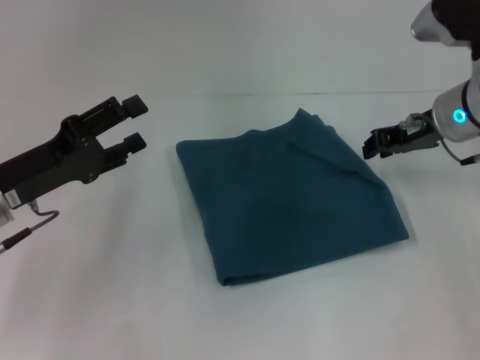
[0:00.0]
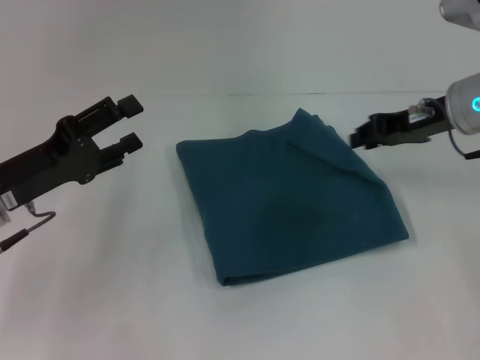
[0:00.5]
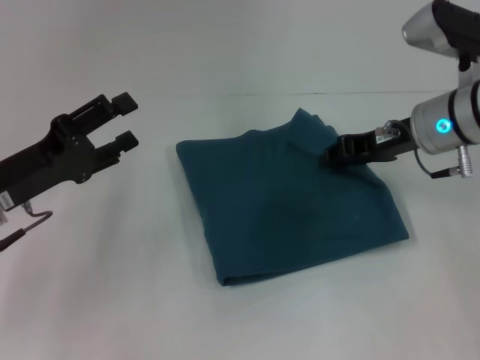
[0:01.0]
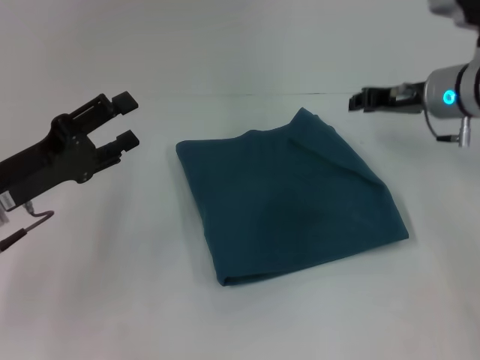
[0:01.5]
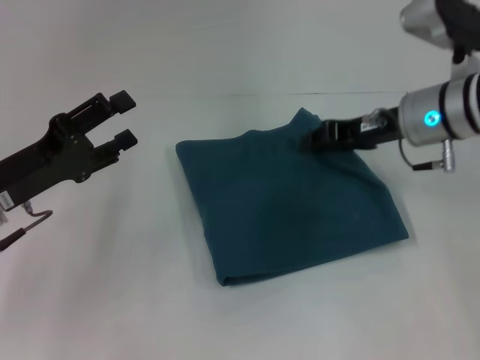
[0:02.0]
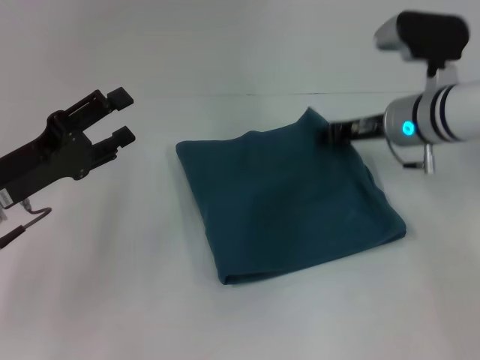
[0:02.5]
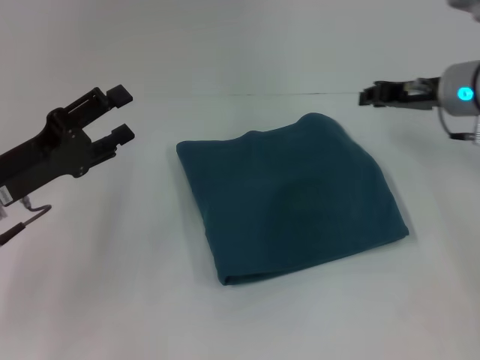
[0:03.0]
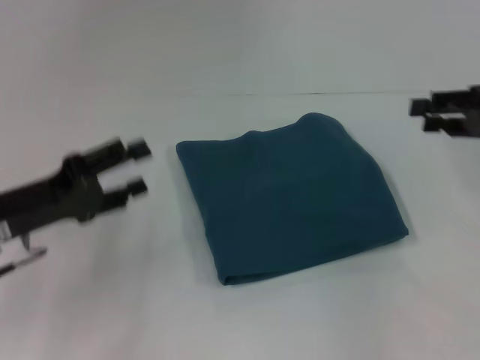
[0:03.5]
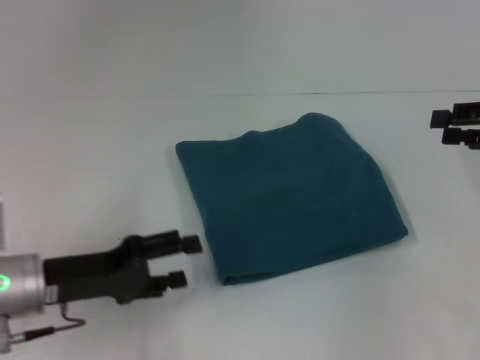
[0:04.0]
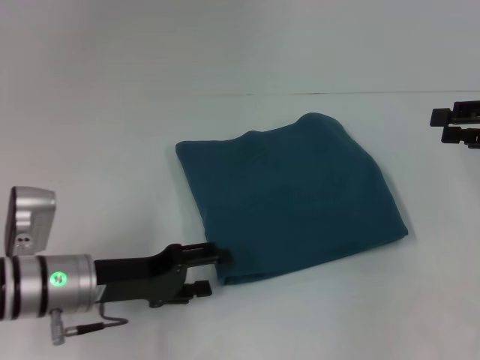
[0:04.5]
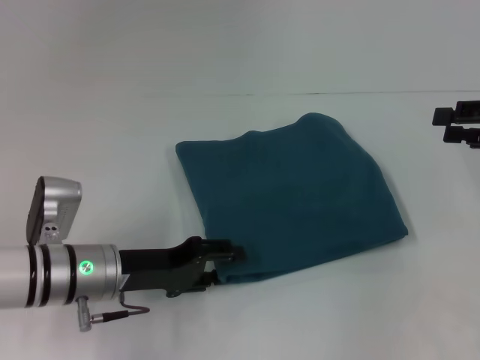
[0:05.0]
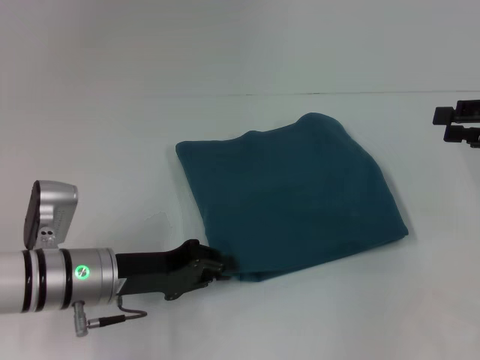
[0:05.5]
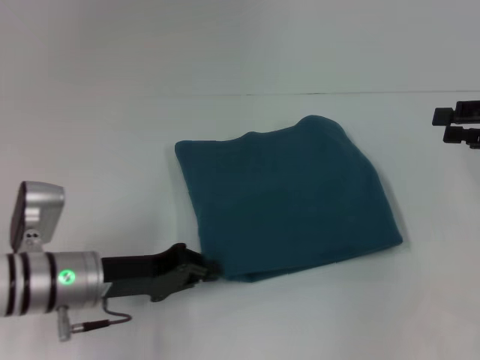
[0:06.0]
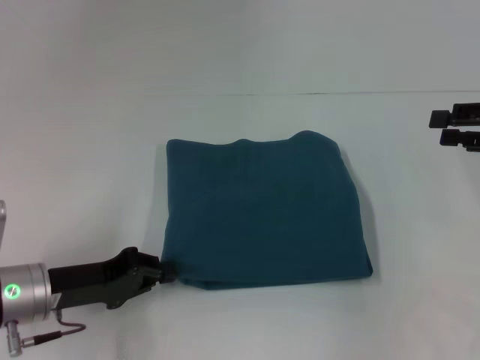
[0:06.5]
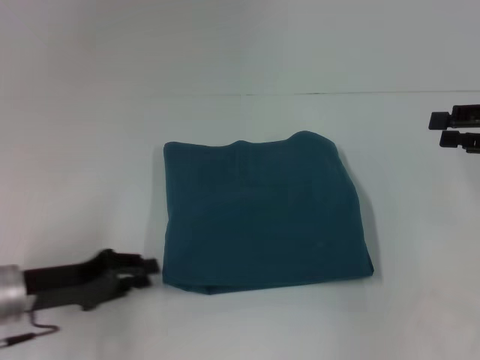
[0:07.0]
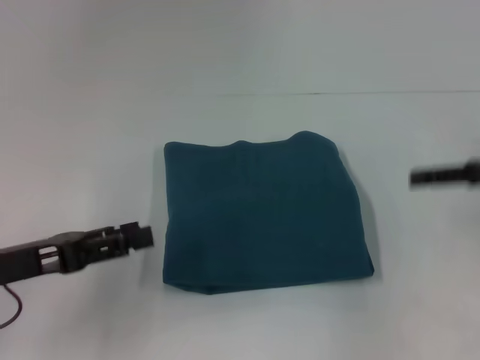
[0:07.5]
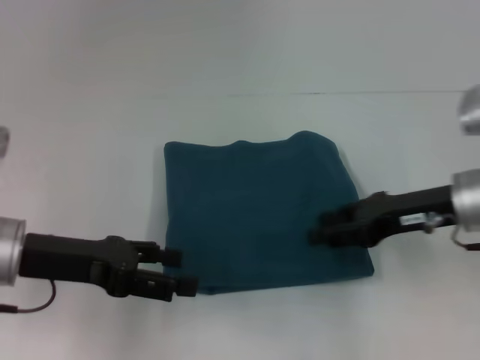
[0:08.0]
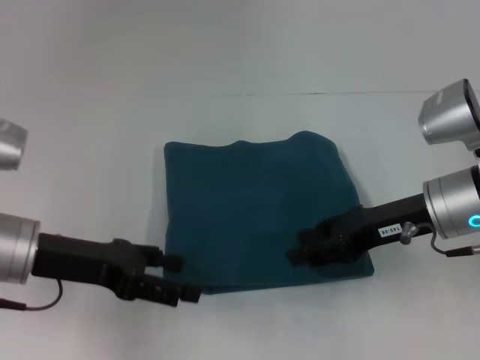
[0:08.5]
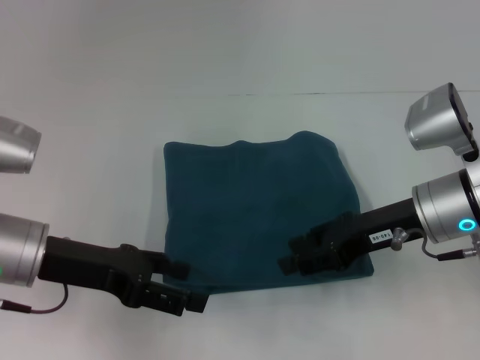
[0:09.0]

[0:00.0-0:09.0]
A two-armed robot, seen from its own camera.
0:02.0 to 0:04.5: The right gripper travels to the right by roughly 15 cm. Meanwhile the left gripper heads to the right and downward, covering some 10 cm.
0:04.5 to 0:07.0: The left gripper is displaced to the left by approximately 5 cm, and closes.
0:07.0 to 0:09.0: The left gripper travels upward by roughly 5 cm, and opens up, while the right gripper is displaced to the left by some 15 cm.

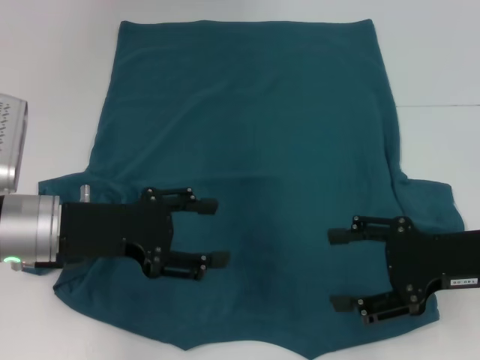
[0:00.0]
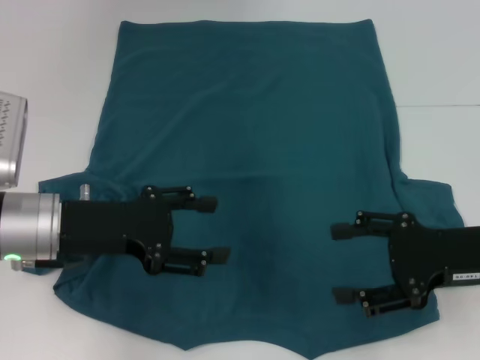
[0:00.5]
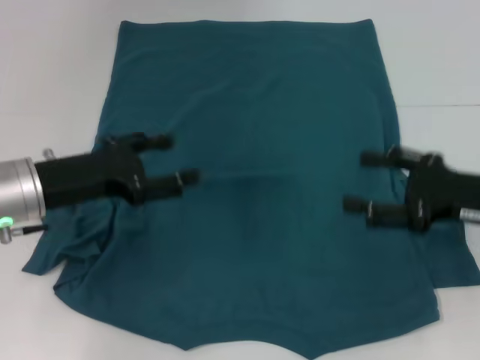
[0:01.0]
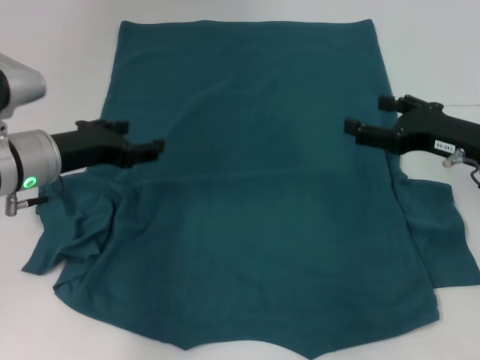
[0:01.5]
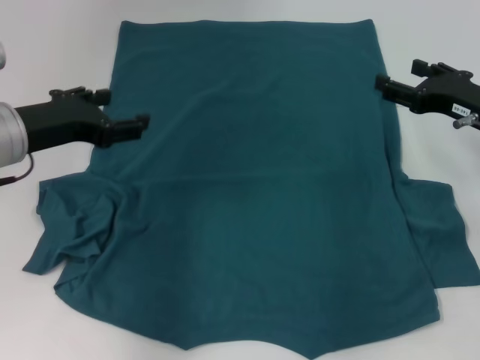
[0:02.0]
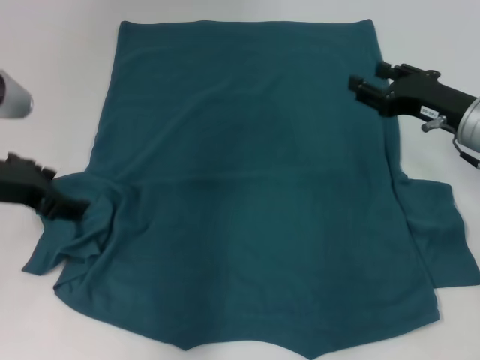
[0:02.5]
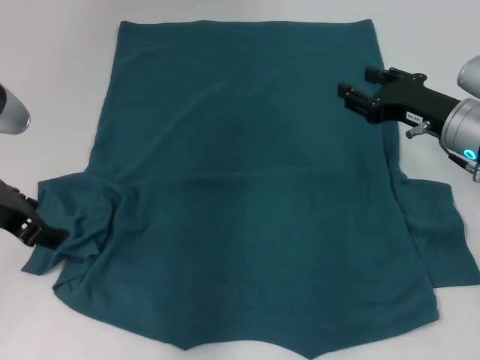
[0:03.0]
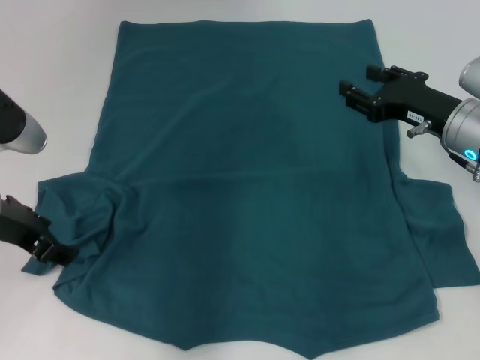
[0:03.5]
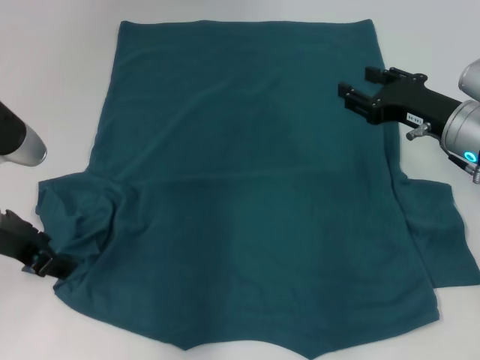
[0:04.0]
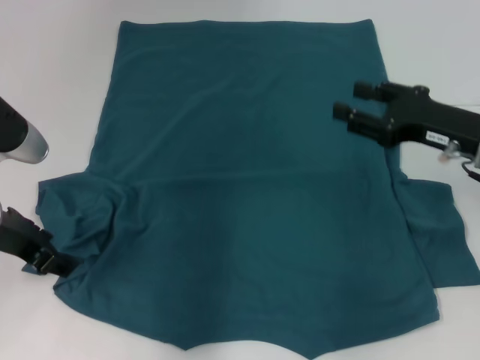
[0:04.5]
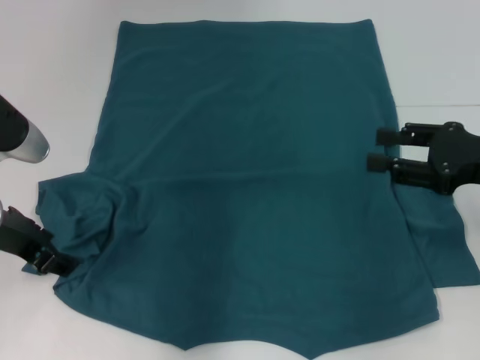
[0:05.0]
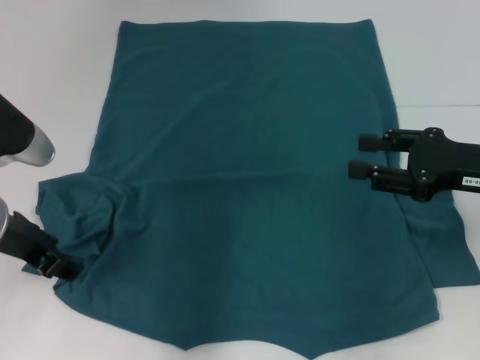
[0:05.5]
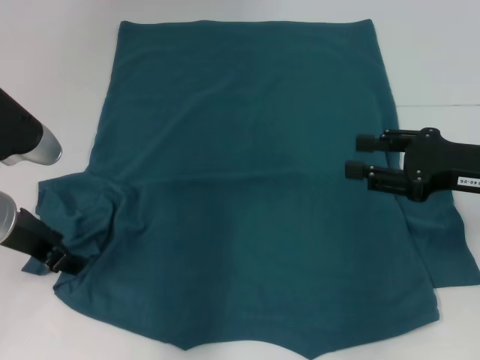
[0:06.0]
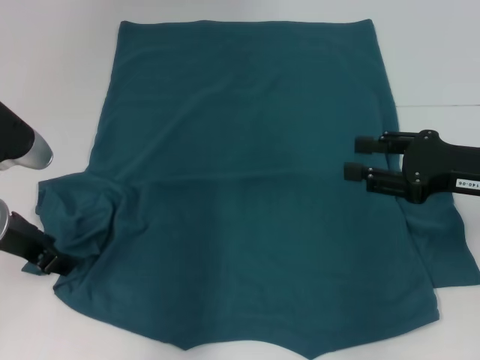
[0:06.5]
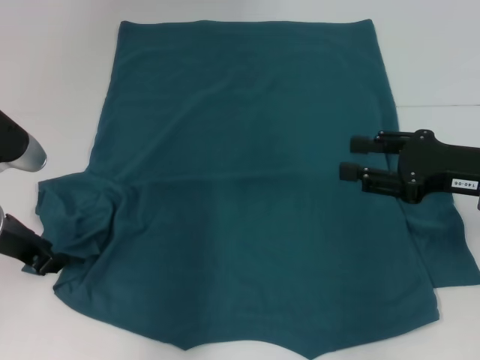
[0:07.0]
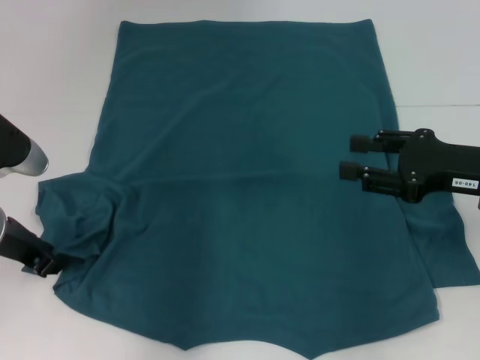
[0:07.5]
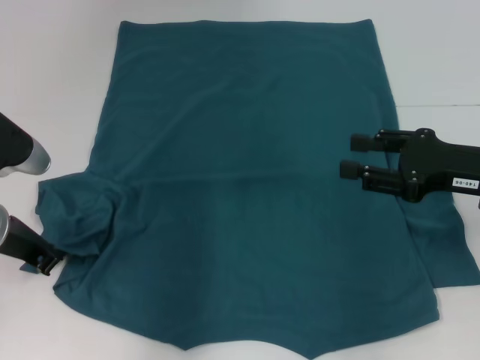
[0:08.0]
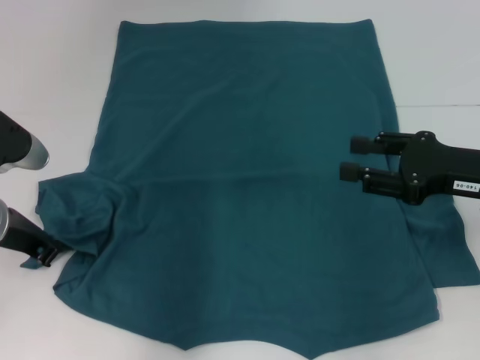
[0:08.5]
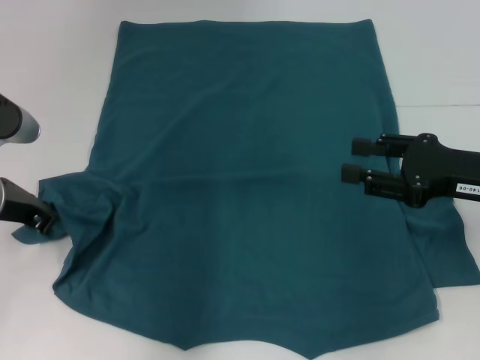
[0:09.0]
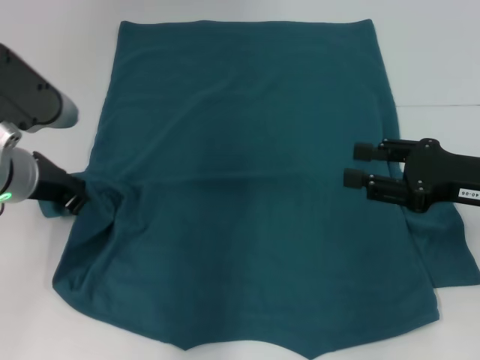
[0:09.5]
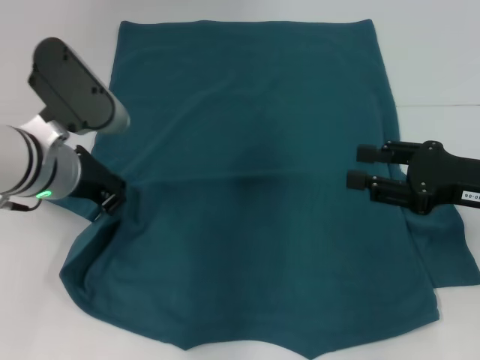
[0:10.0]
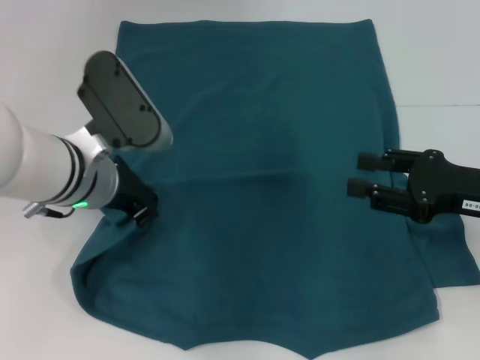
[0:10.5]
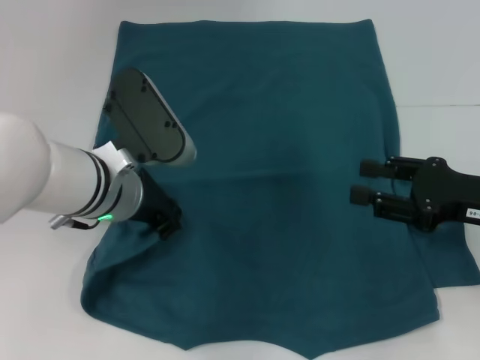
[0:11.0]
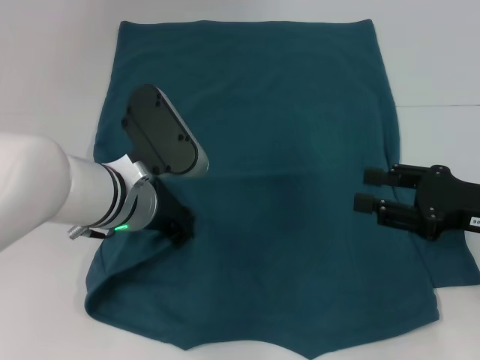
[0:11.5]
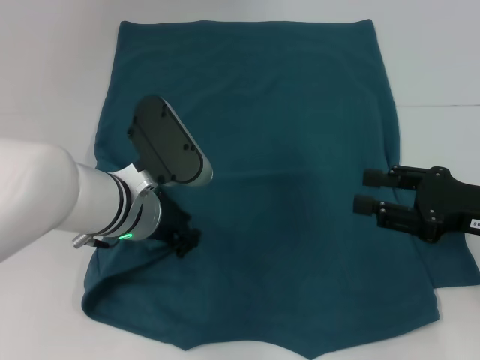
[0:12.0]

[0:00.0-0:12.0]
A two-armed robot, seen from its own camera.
0:00.0 to 0:02.0: The left gripper moves approximately 5 cm, while the right gripper is displaced forward by roughly 10 cm.
0:04.0 to 0:06.0: The right gripper travels backward by some 5 cm.
0:06.0 to 0:08.0: The left gripper closes its fingers.
0:08.0 to 0:10.0: The left gripper shifts about 10 cm to the right.
0:10.0 to 0:12.0: The left gripper shifts approximately 5 cm to the right.

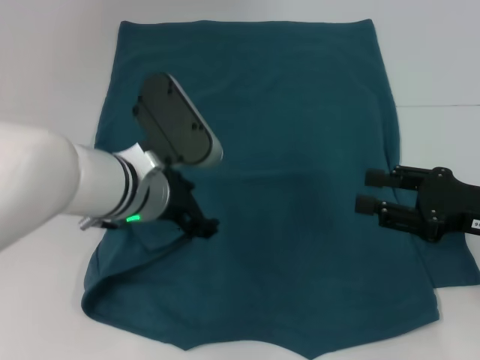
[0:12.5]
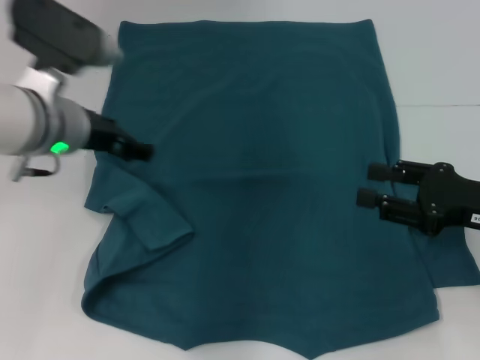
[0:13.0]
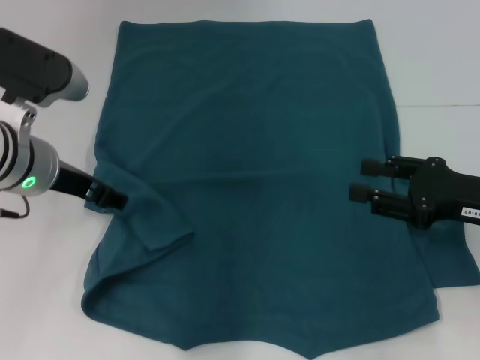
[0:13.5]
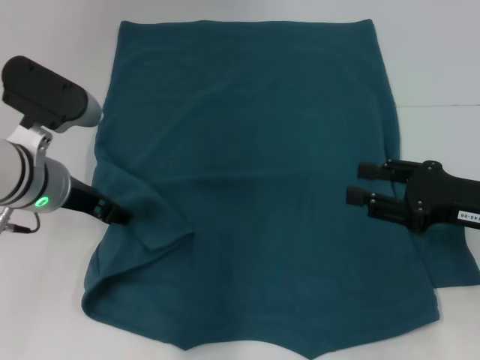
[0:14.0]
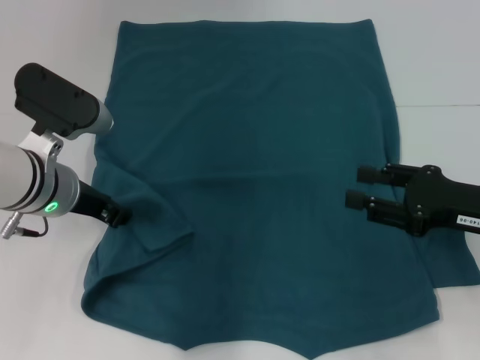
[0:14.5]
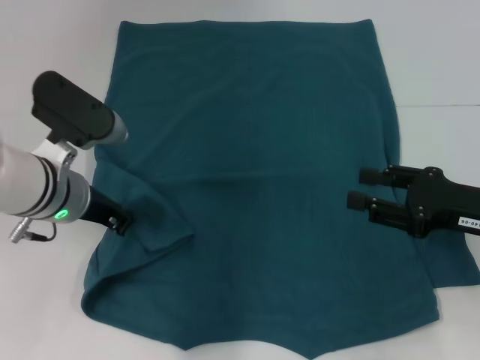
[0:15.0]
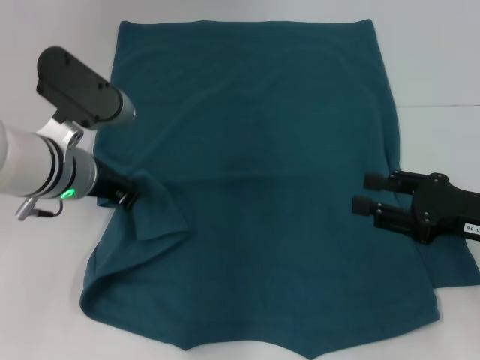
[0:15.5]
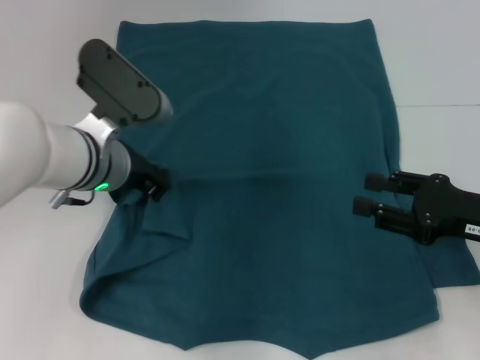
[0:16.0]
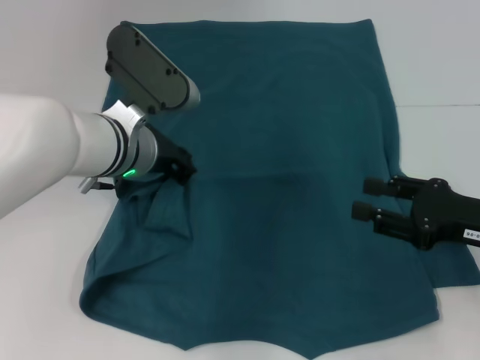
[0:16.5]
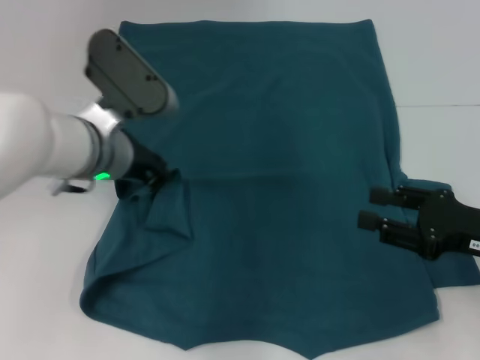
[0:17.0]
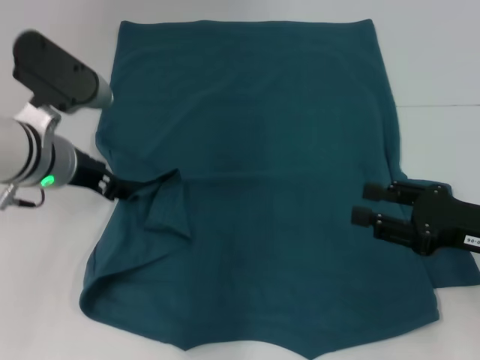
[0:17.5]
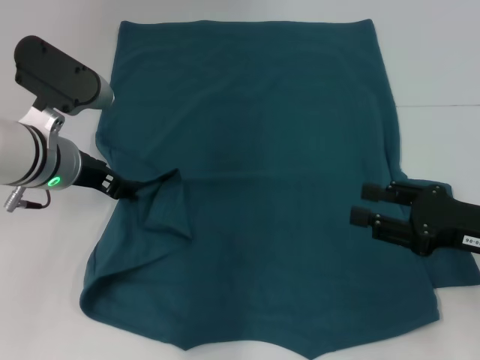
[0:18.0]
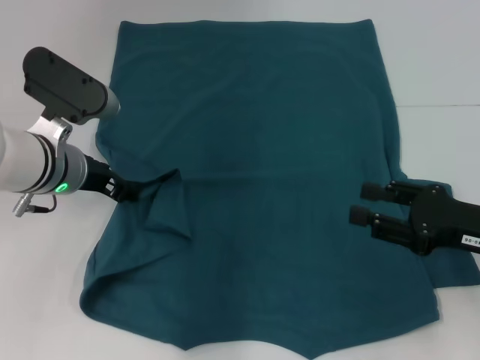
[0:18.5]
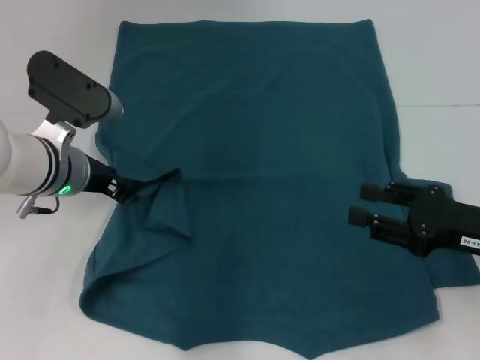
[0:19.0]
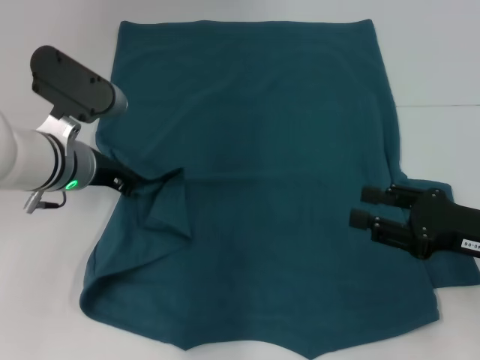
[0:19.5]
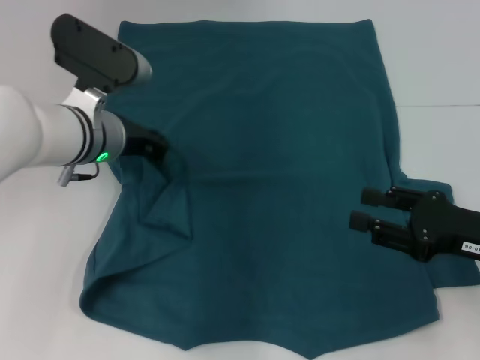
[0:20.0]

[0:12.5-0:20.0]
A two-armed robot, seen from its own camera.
0:12.5 to 0:14.5: The left gripper moves to the left, about 10 cm.
0:14.5 to 0:16.5: The left gripper goes about 5 cm to the right, and closes.
0:16.5 to 0:18.0: The left gripper goes roughly 5 cm to the left, and opens.
0:18.0 to 0:20.0: The left gripper closes its fingers.
